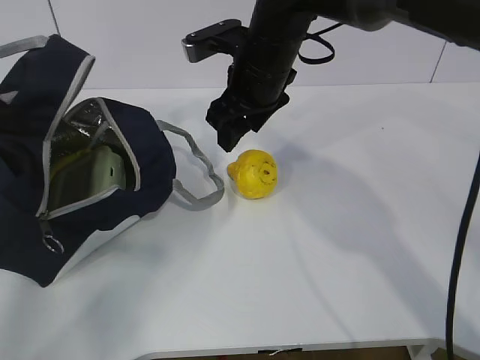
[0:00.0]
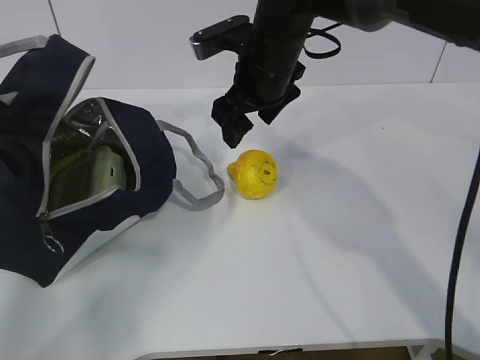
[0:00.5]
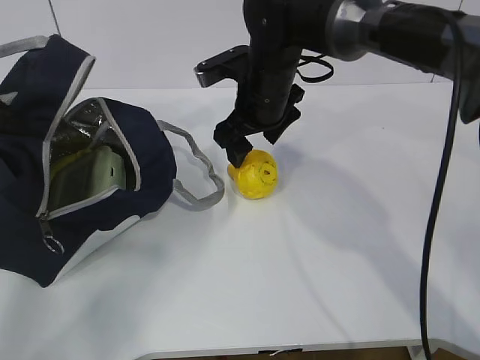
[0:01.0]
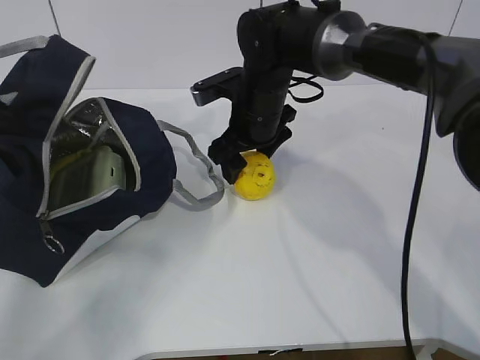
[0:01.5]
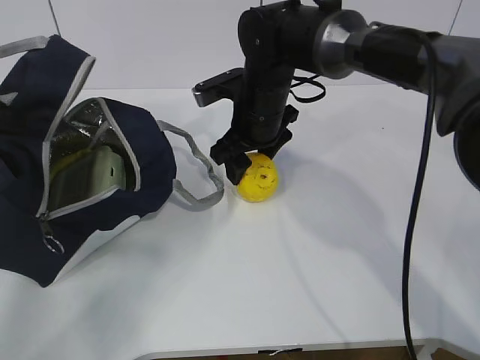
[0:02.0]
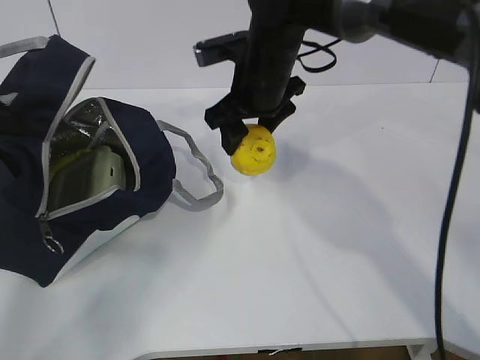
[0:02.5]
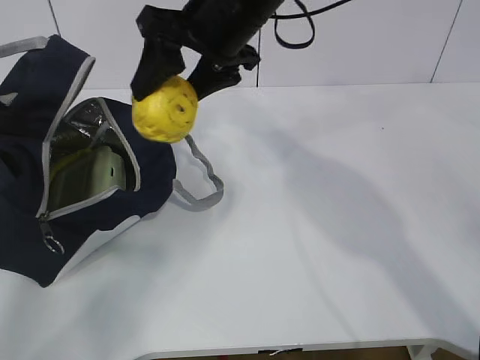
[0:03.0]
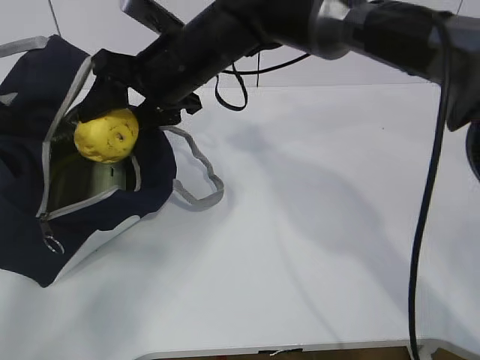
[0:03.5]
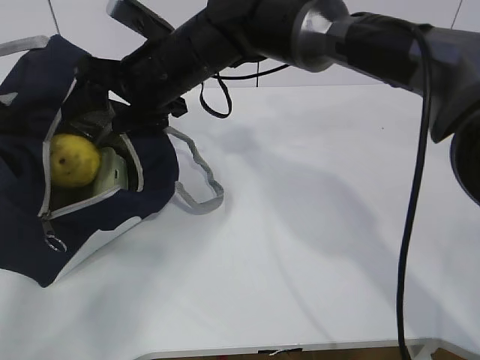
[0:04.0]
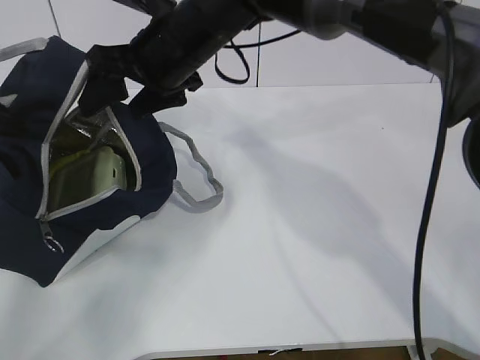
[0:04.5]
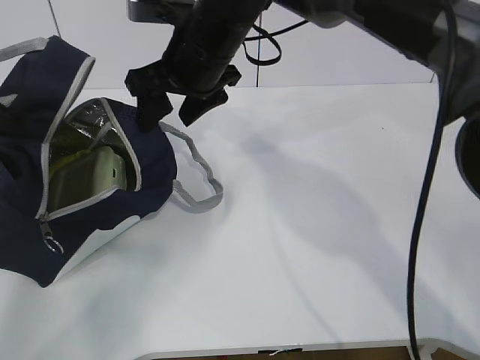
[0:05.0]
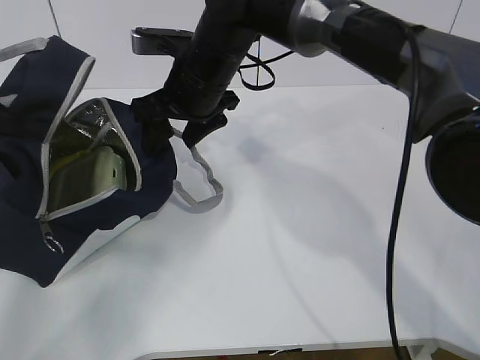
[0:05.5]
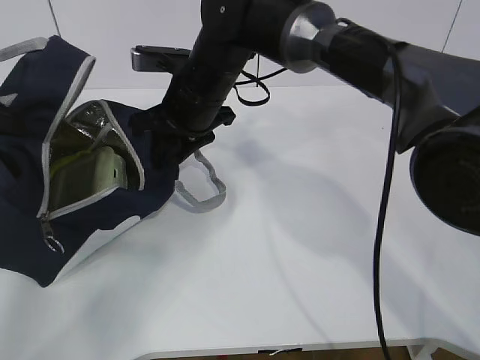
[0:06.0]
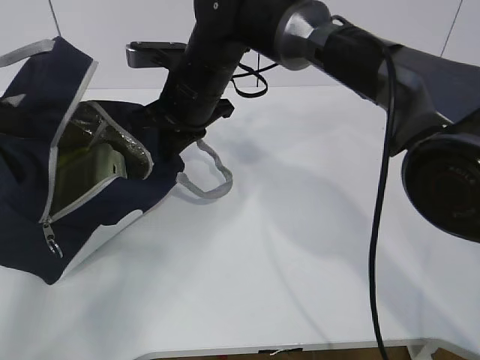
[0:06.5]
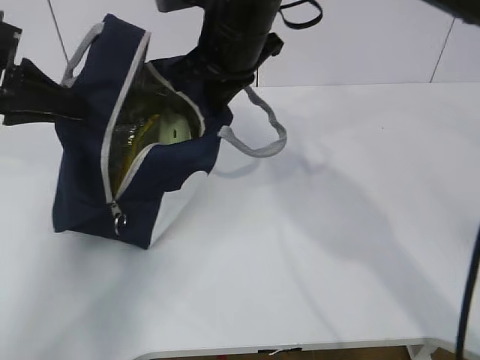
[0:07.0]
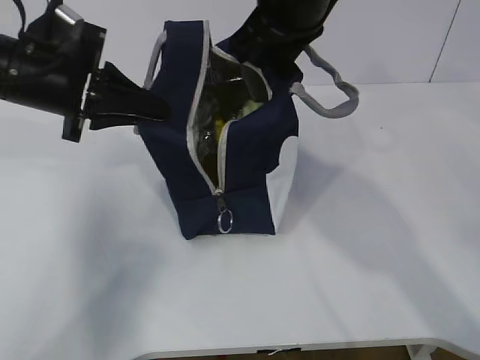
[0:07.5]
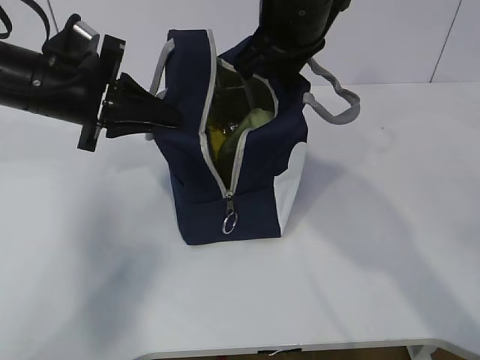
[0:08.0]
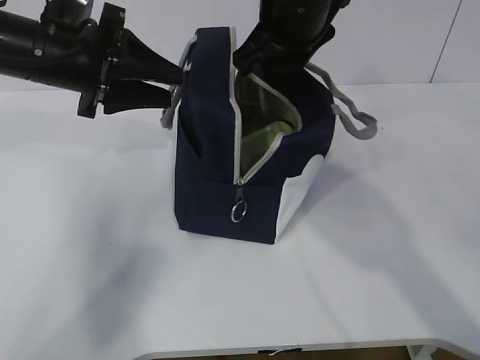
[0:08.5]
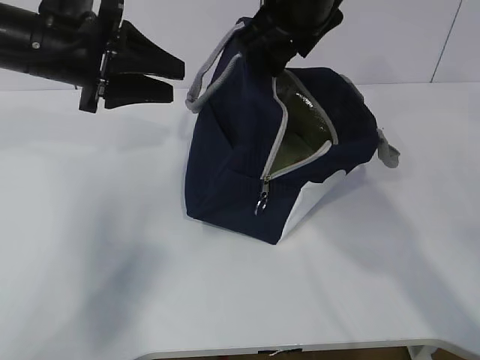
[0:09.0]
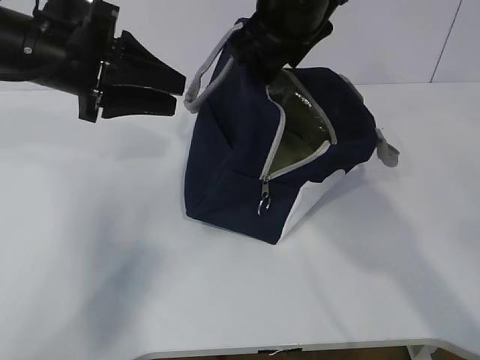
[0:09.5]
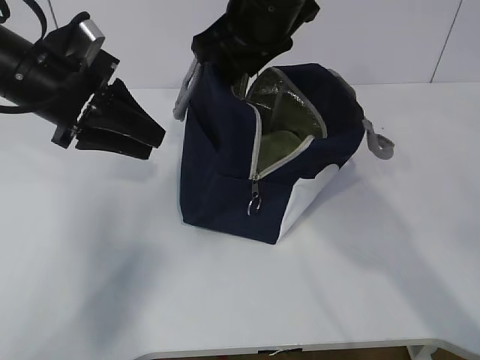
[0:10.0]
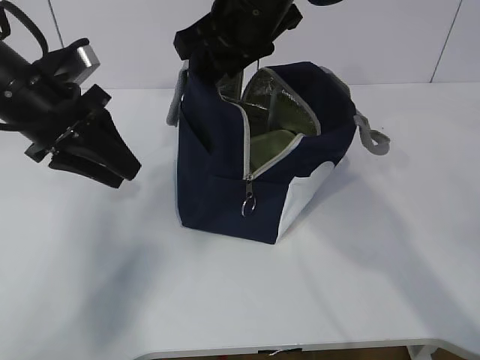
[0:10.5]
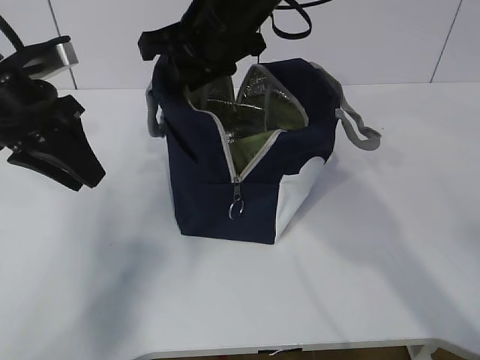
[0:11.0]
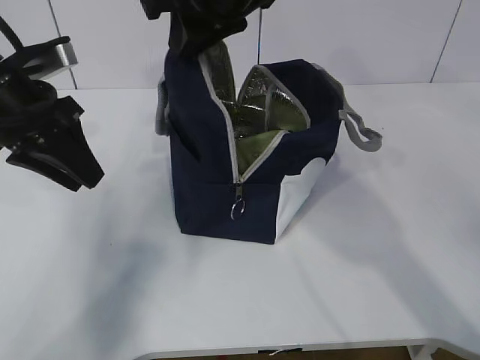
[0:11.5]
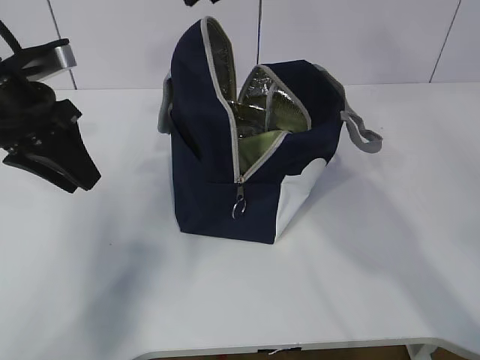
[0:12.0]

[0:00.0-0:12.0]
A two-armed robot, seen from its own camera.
Step, 0.5 to 4.5 s: Move the lunch bag to the right.
0.0 to 2.0 s: The right gripper travels downward by about 5 cm.
2.0 to 4.0 s: The right gripper goes approximately 10 cm to the left and upward.
4.0 to 6.0 s: The right gripper closes its fingers.
6.0 to 8.0 s: The right gripper shifts approximately 15 cm upward and to the right, and closes, while the left gripper goes some 15 cm to the right.
8.0 to 10.0 s: The right gripper opens its fingers. Meanwhile the left gripper opens its fingers.
10.0 to 12.0 s: The right gripper shifts some 10 cm upward.

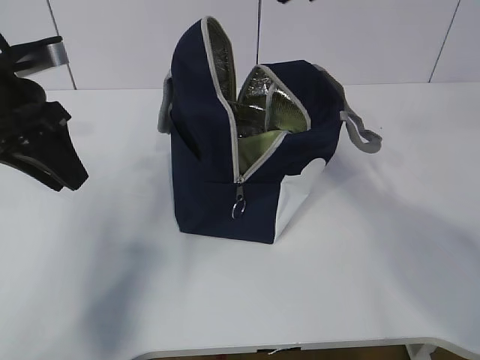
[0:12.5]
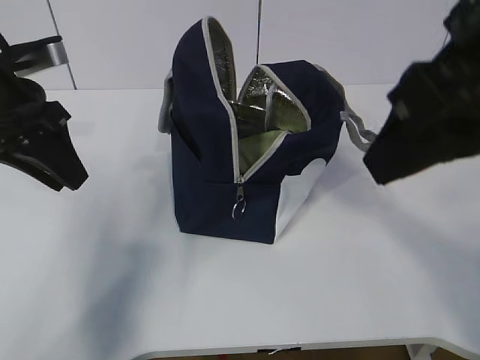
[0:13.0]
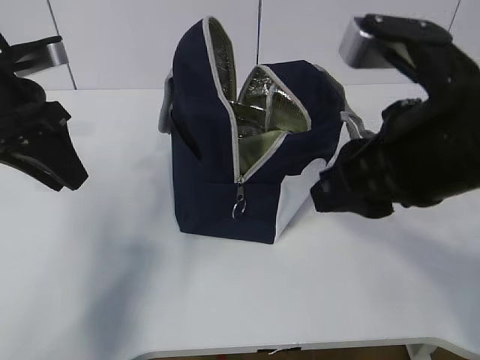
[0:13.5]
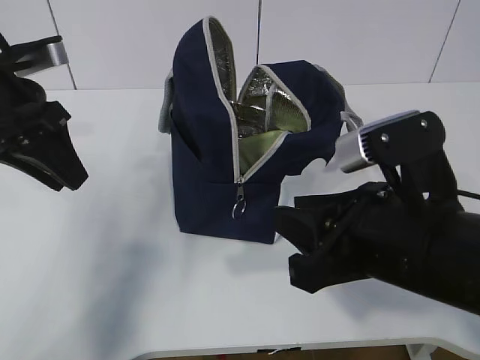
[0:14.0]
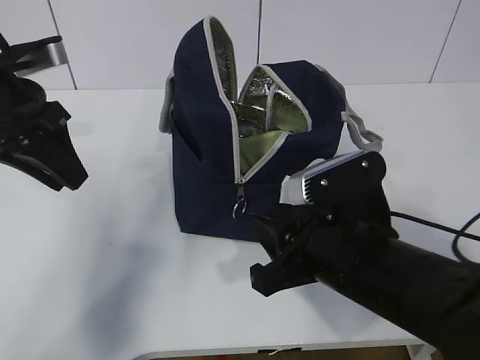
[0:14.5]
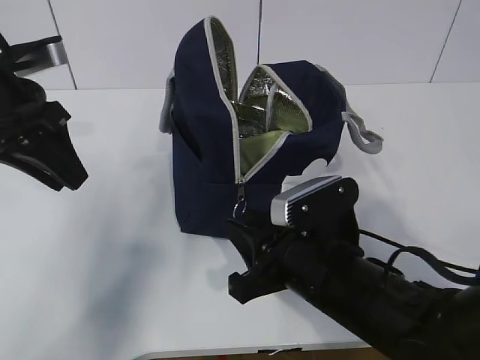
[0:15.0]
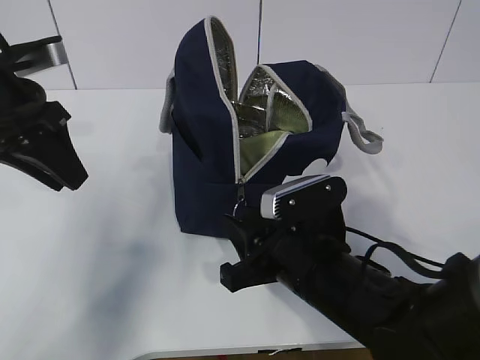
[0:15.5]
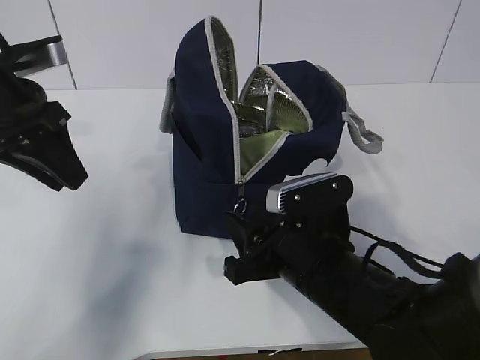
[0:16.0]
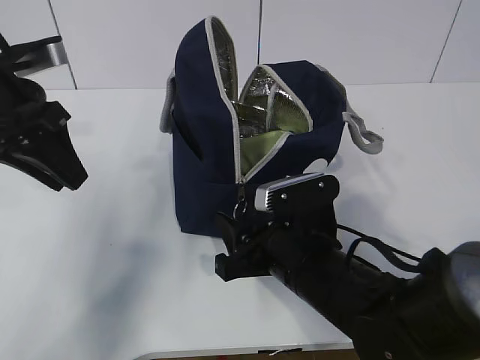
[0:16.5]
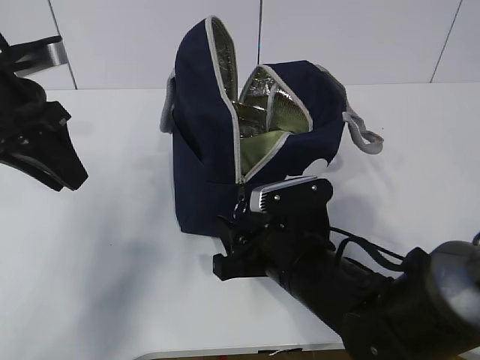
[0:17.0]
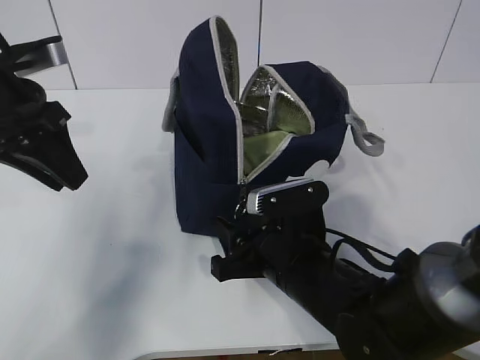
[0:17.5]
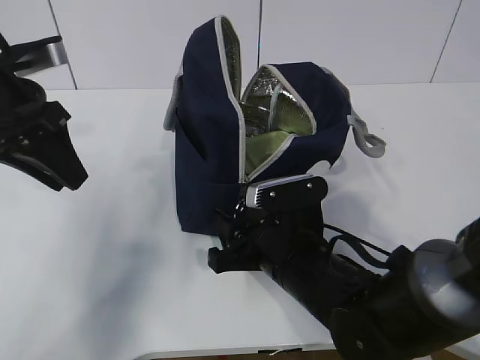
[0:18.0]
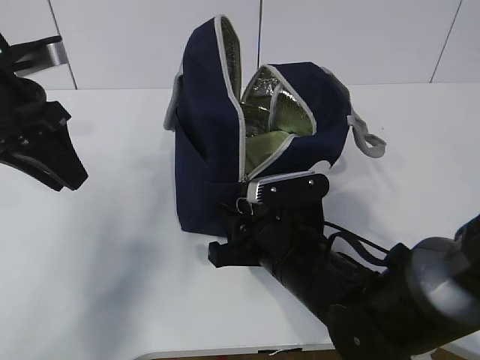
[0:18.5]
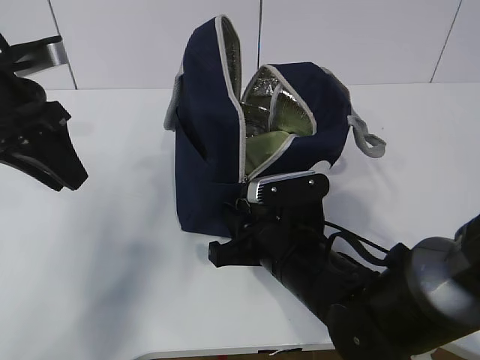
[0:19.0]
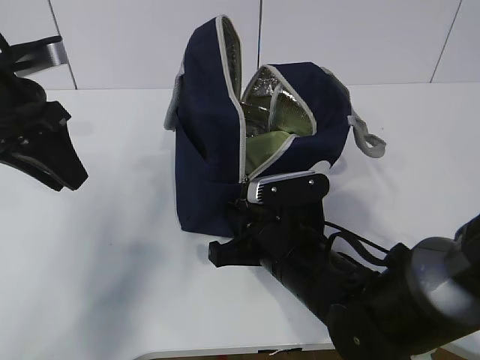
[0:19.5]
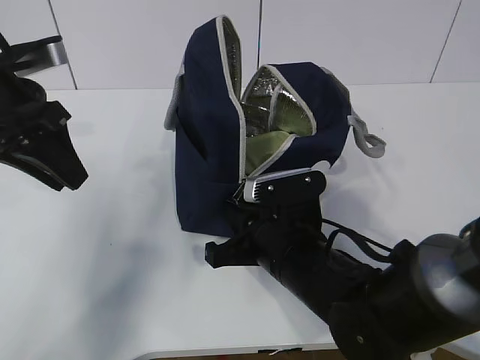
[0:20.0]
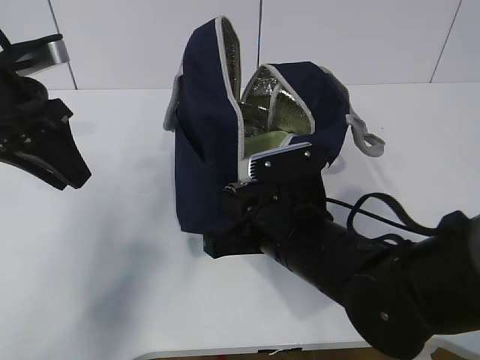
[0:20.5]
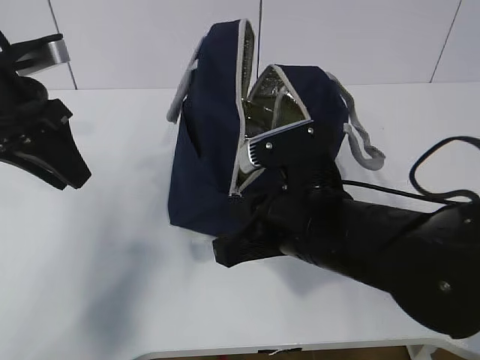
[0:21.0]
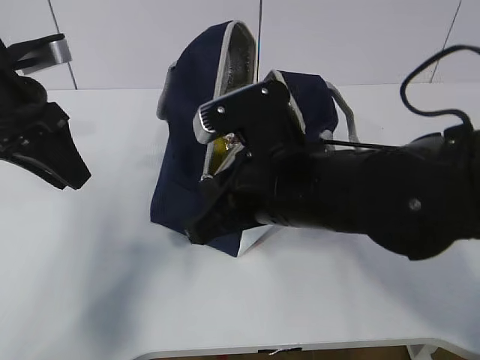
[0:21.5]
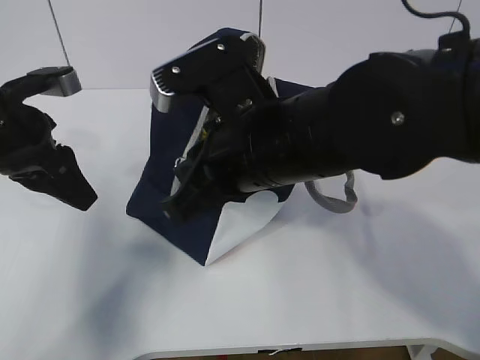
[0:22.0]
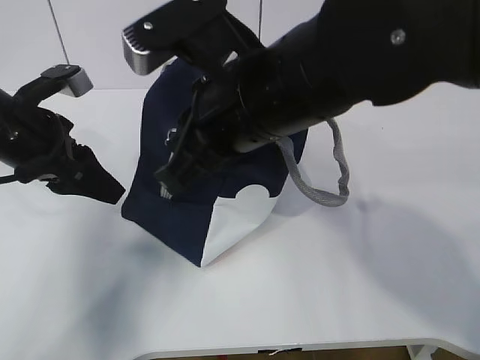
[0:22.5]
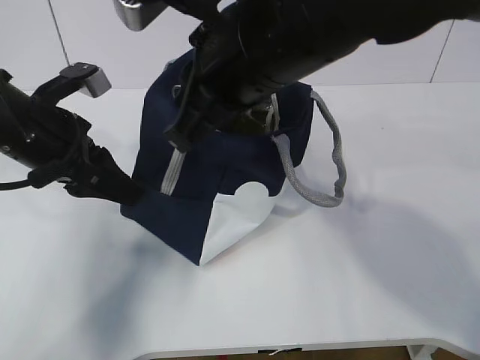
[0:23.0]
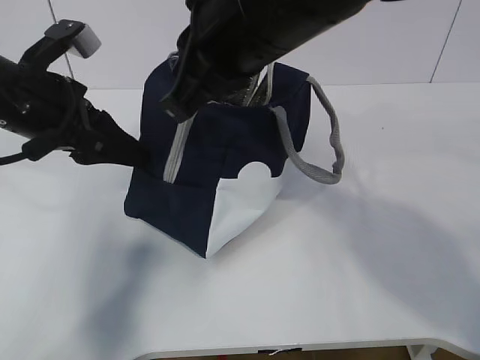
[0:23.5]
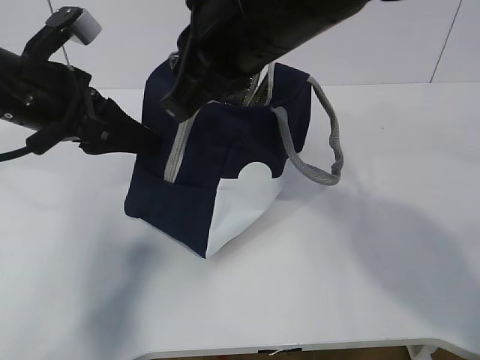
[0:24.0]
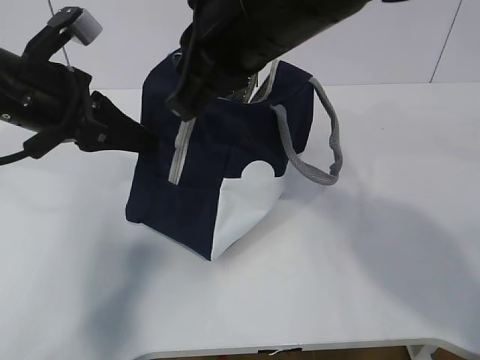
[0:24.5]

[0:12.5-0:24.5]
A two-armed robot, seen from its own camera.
Step, 17.0 to 22.0 s: Pull the zipper with your right hand.
12.5 to 14.5 s: The right gripper is displaced downward by approximately 30 cm.
14.5 to 16.5 s: The right gripper heads downward, covering some 5 cm.
16.5 to 18.5 s: The grippers stay close to where they were, moving slightly.
18.5 to 20.5 s: The right gripper closes up.
20.5 to 22.5 s: The right gripper travels upward by about 15 cm.
22.5 to 24.5 s: The right gripper shifts some 5 cm upward, while the left gripper moves approximately 5 cm, and closes.

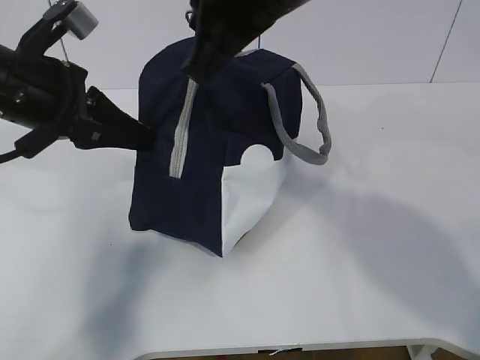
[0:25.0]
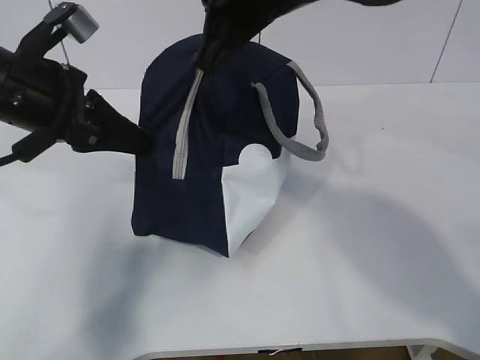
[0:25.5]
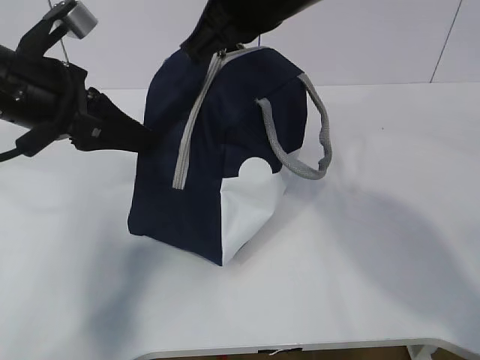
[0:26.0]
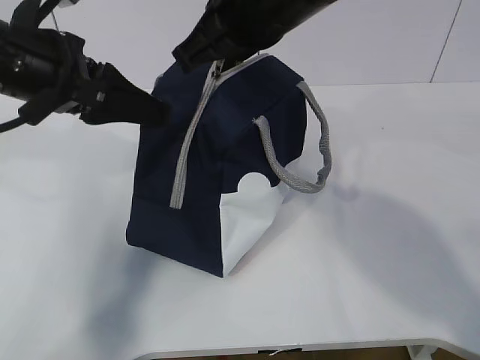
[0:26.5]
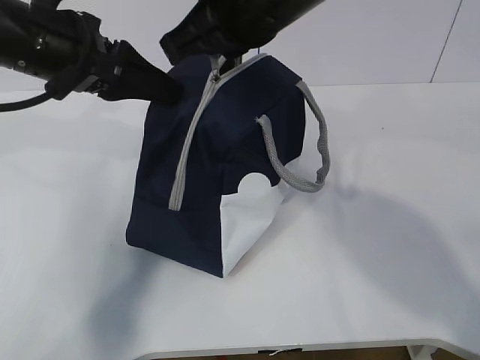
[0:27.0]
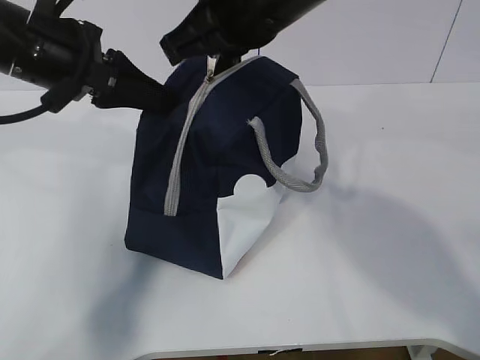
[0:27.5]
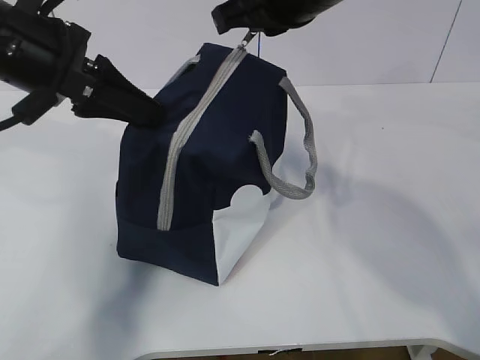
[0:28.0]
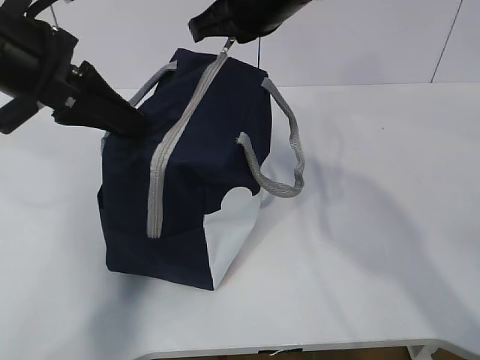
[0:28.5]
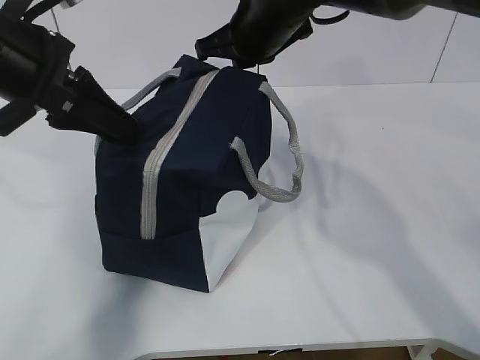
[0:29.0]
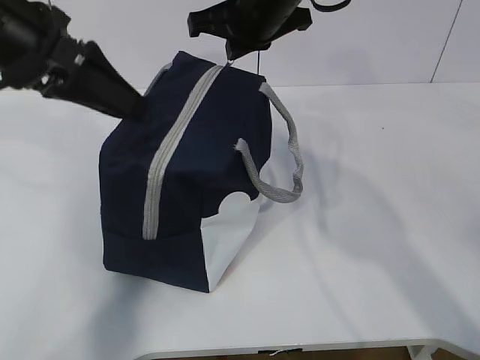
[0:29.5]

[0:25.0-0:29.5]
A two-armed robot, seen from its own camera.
25.0 to 27.0 s: The left gripper opens up.
27.0 to 29.5 s: The left gripper closes and opens again, while the right gripper shifts roughly 10 cm forward.
